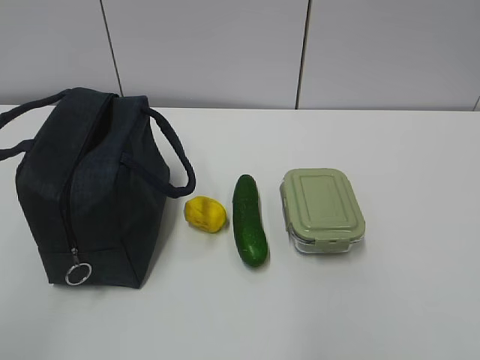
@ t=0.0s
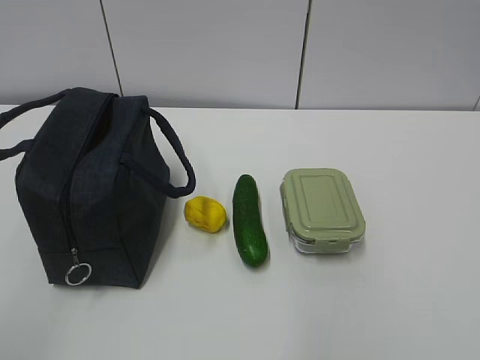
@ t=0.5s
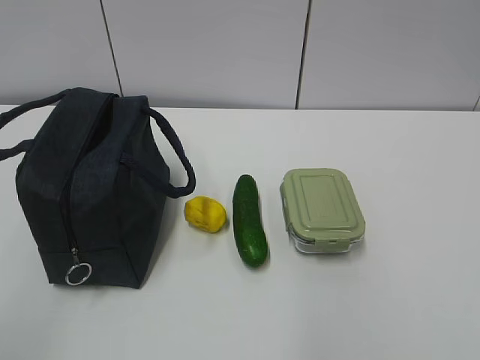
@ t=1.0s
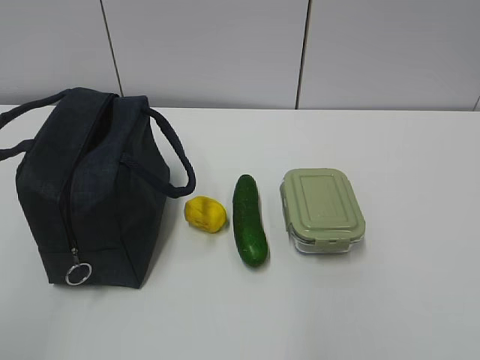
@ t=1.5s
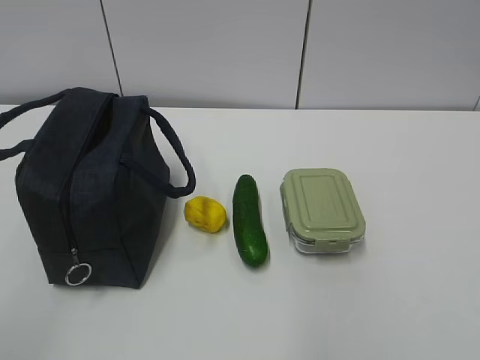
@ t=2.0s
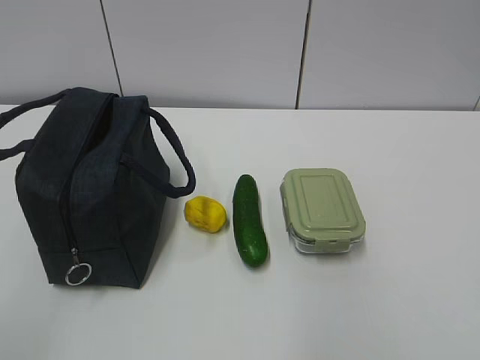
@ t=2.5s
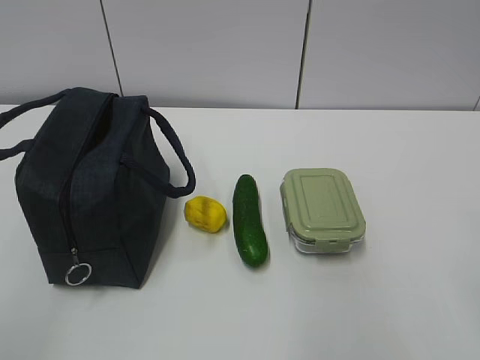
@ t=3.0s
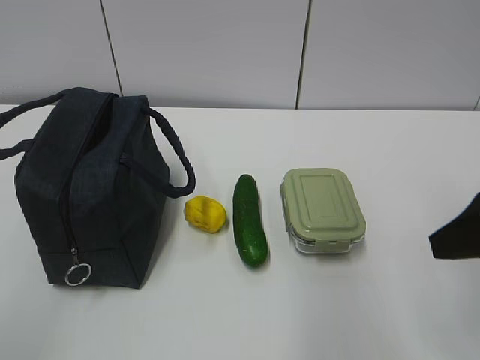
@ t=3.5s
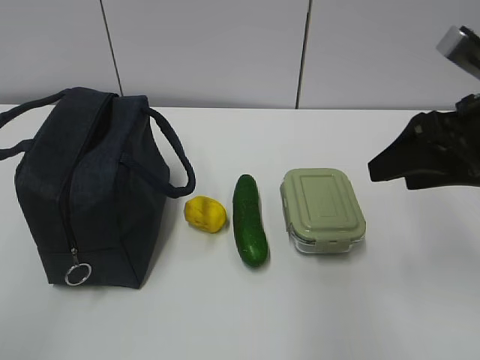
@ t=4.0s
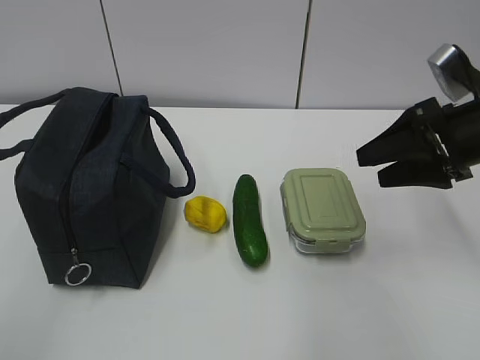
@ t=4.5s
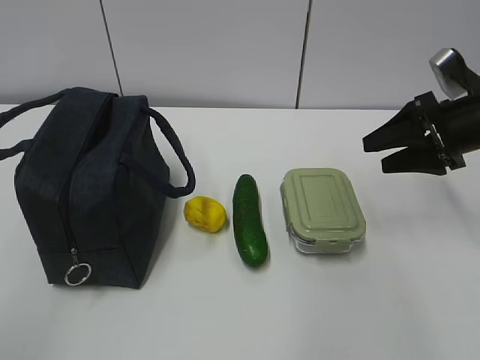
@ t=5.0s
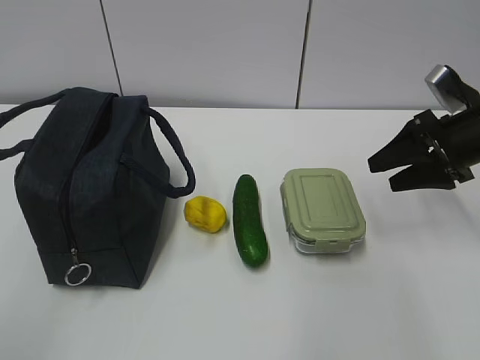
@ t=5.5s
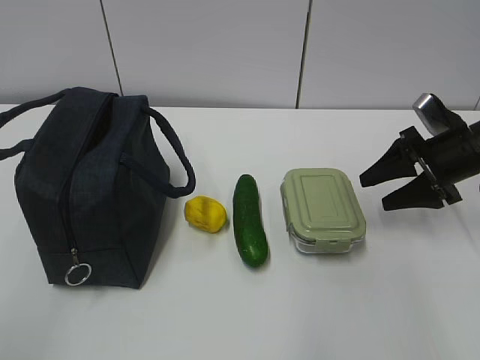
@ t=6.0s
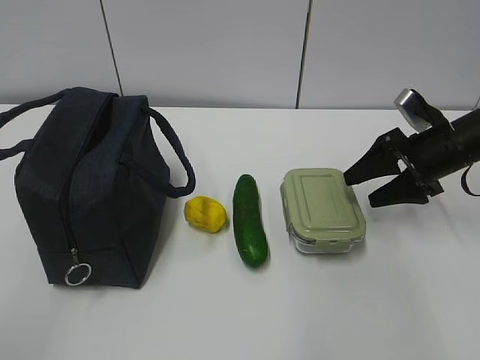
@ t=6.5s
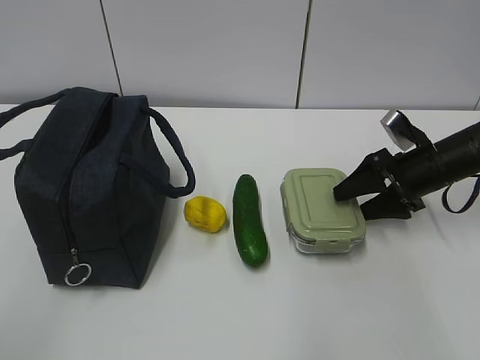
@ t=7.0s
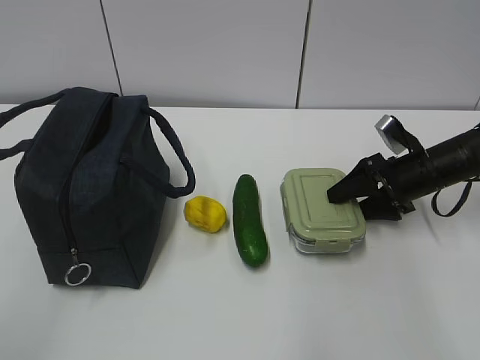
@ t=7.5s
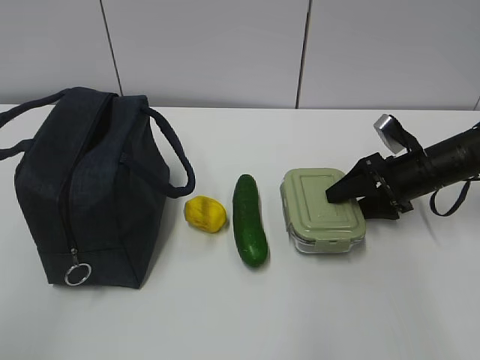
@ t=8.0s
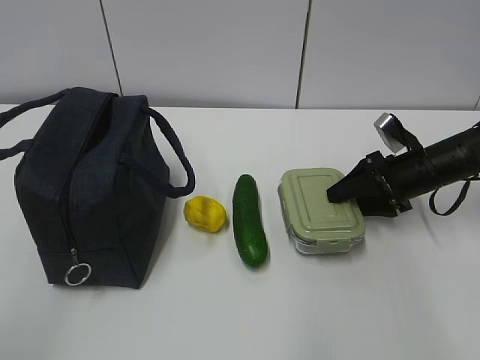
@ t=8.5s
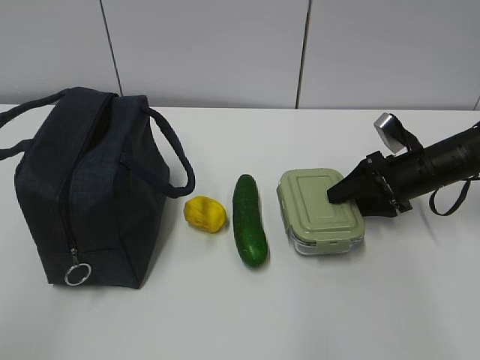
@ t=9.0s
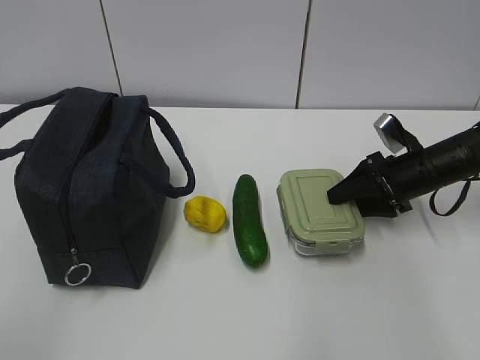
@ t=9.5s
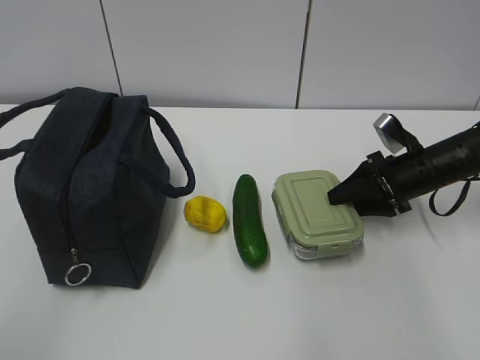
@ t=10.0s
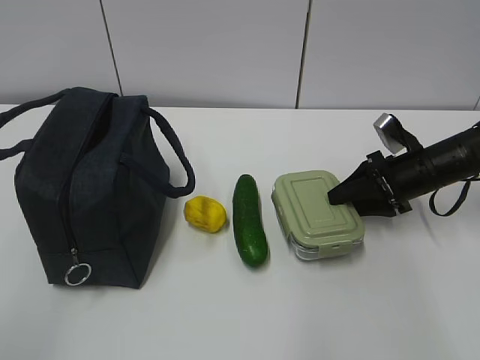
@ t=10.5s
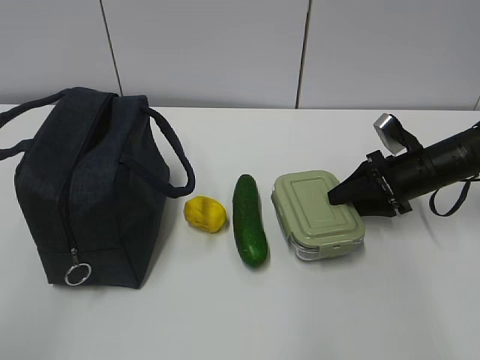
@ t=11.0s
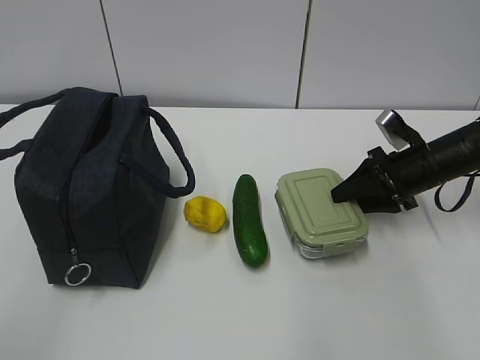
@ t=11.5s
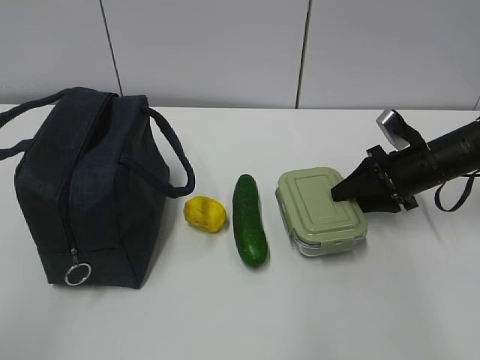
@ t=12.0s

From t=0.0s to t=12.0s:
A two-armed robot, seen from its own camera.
Step, from t=0.0s to t=10.0s: Grab the lunch box with your right hand.
From t=2.0s to t=4.0s: The right gripper goes roughly 30 cm forward.
From t=4.0s to t=6.0s: The right gripper shifts some 15 cm downward, forward and to the right.
From t=6.0s to t=8.0s: The right gripper moves downward, some 5 cm.
From t=8.0s to t=12.0s: Both grippers stay about where they are.

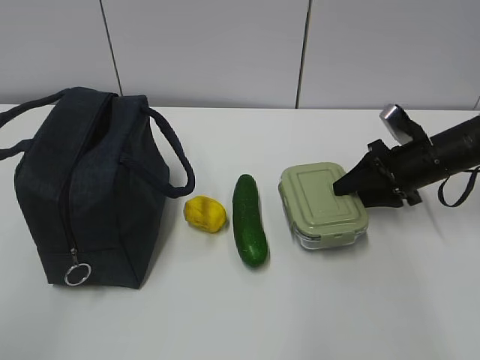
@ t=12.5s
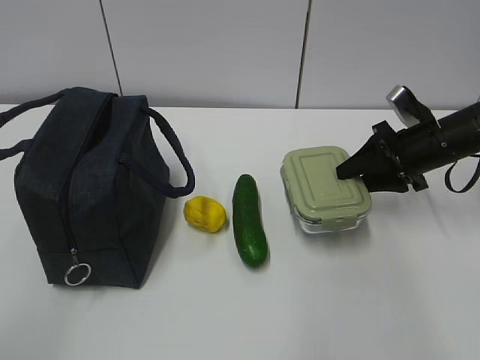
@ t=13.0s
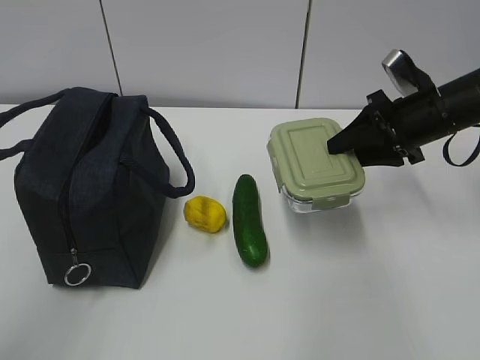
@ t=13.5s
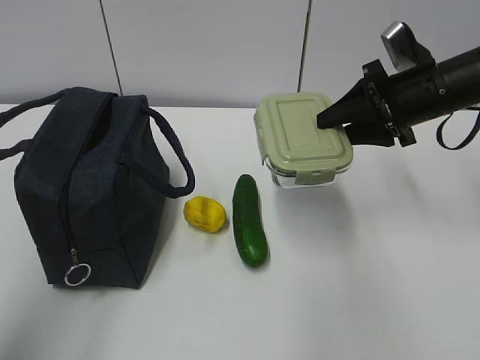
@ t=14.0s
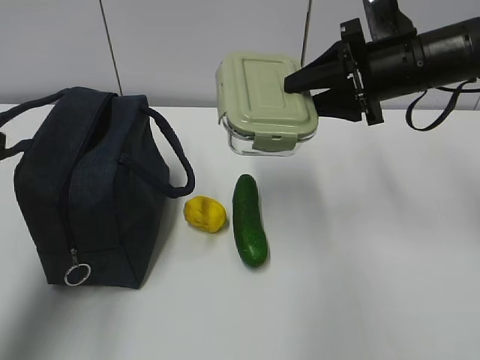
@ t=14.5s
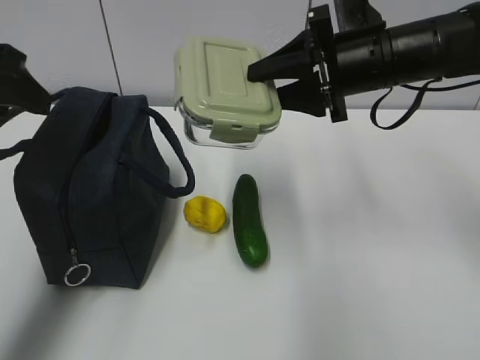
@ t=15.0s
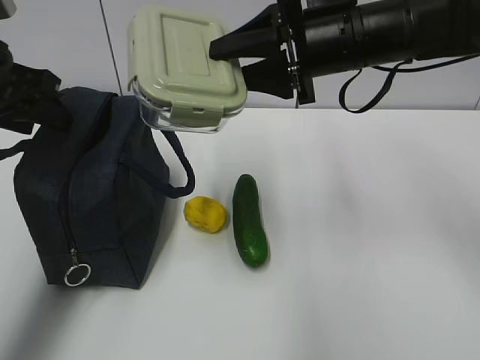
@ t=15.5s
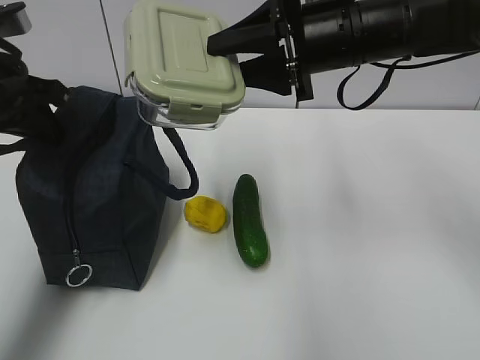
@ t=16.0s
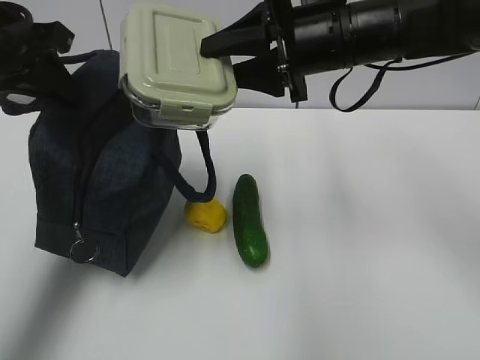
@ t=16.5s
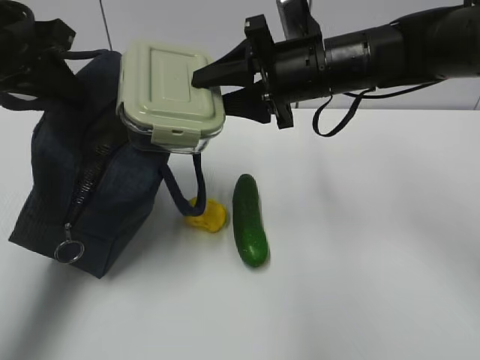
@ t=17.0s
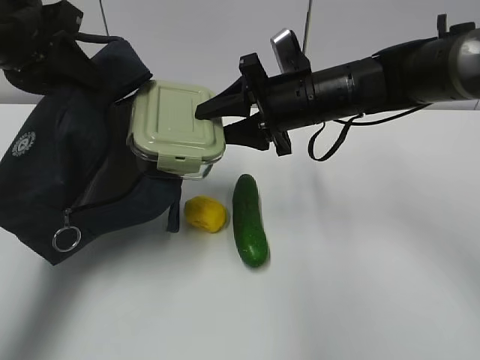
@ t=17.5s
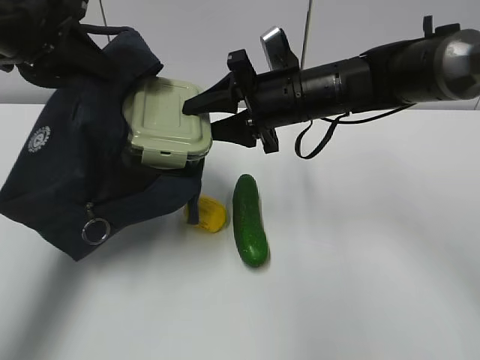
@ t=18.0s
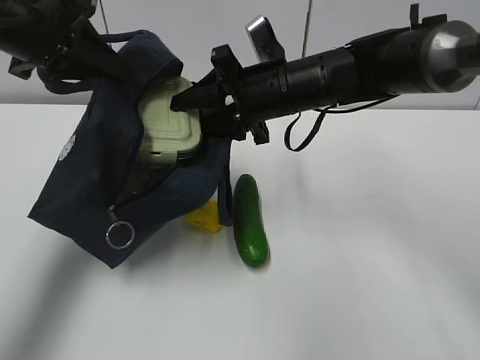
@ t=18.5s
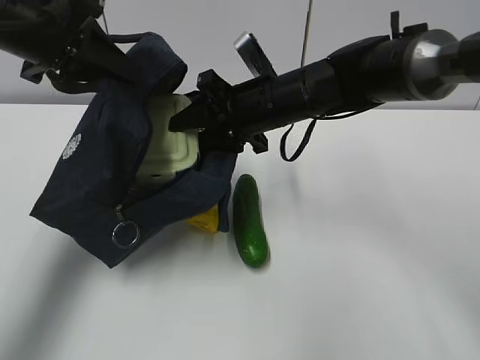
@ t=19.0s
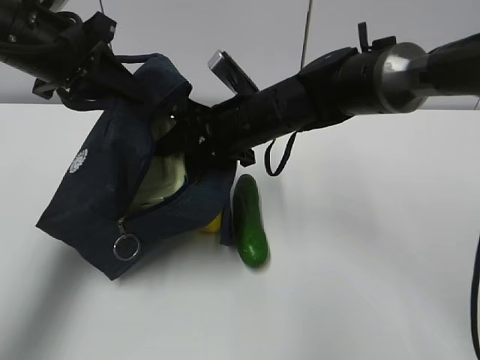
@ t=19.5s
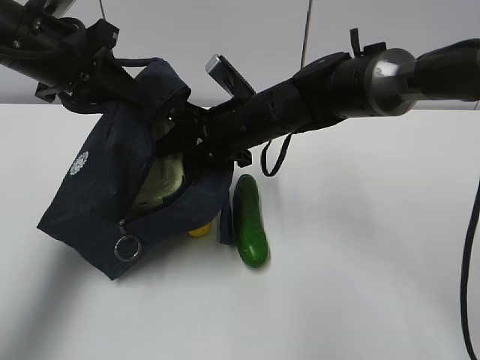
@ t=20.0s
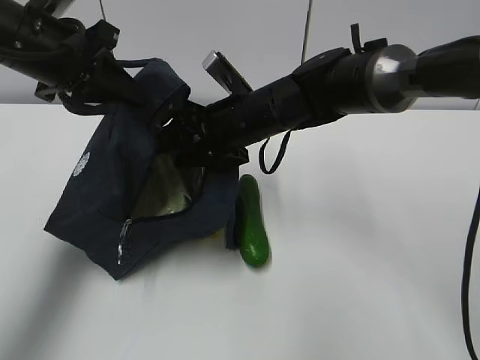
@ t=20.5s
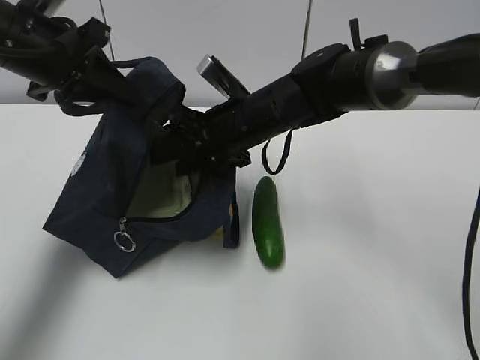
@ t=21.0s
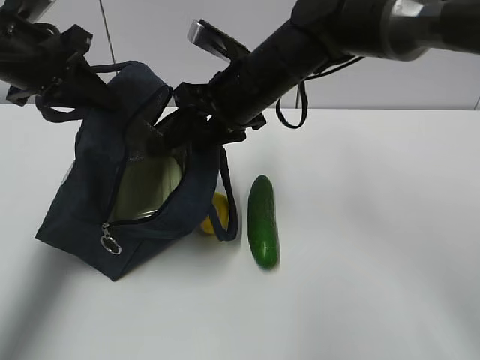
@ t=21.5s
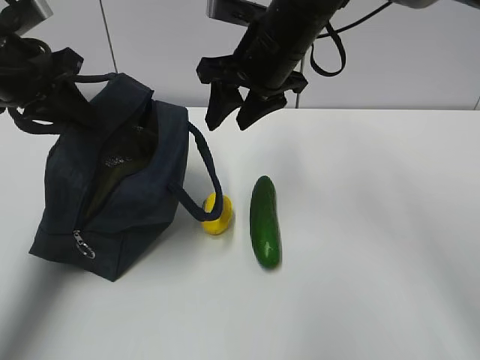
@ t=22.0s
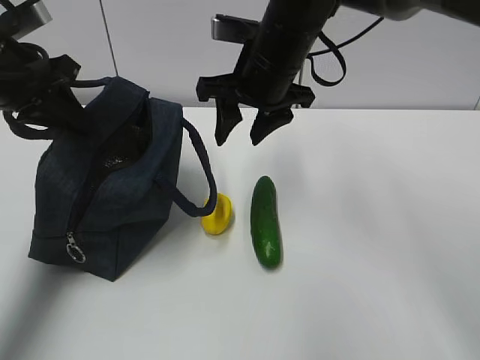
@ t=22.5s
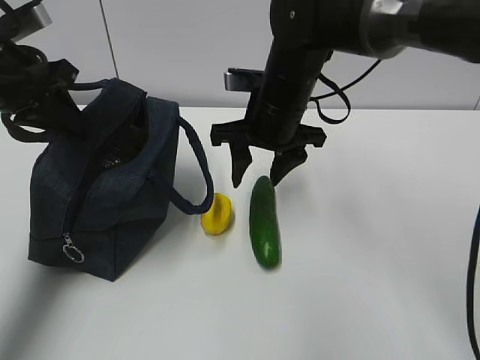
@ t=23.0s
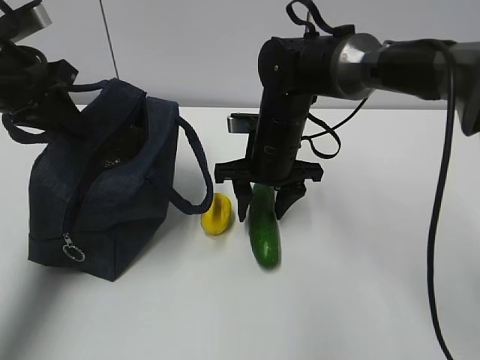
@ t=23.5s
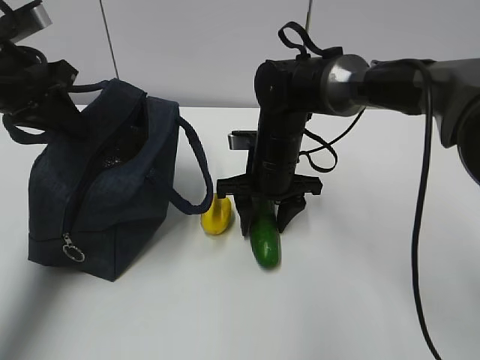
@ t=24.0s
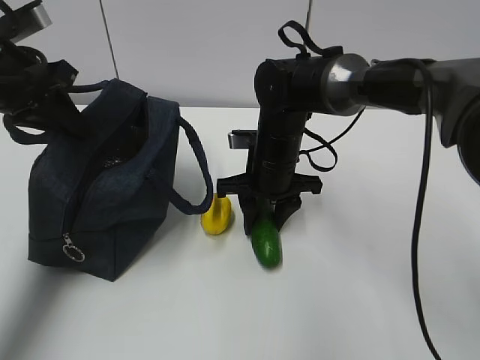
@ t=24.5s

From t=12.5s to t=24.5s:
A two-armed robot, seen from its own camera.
Step, from t=14.0s to t=17.0s: Place it into the bag with your right hand.
Step, from t=17.5s to t=20.5s: Grab the cucumber with your right hand.
Step, from t=21.0s to t=23.0s: Place it into the bag with your right hand.
From t=12.5s to t=14.5s: The right gripper moves upward and to the left, about 15 cm; the left gripper heads forward, covering roughly 20 cm, and opens up.
From t=14.5s to t=16.5s: The left gripper goes about 15 cm forward, and closes. The right gripper moves to the left, some 10 cm.
From t=16.5s to t=18.5s: The right gripper is displaced downward by about 5 cm.
From t=18.5s to t=20.5s: The right gripper changes place by some 5 cm.
From t=20.5s to t=22.5s: The right gripper is displaced upward by roughly 5 cm.
From t=22.5s to t=24.5s: The right gripper heads downward, covering roughly 15 cm.

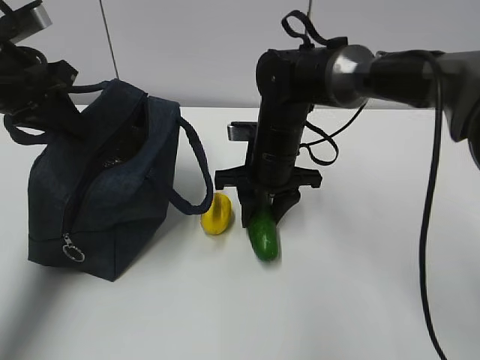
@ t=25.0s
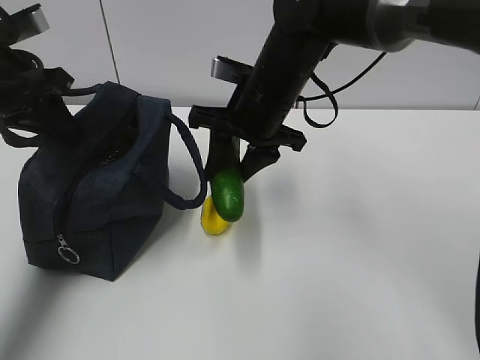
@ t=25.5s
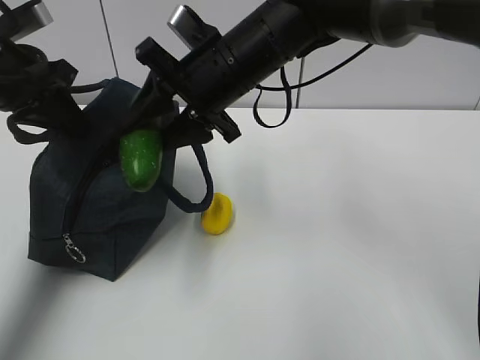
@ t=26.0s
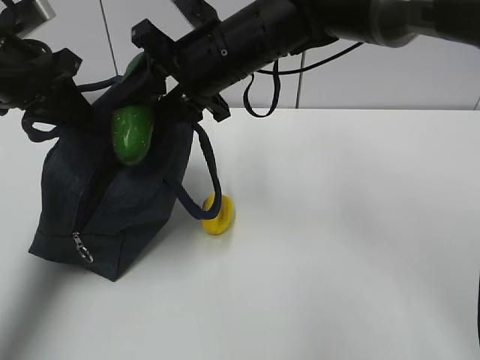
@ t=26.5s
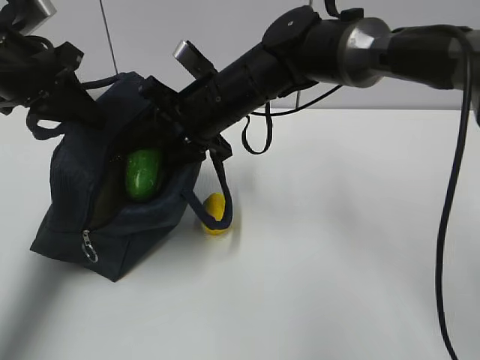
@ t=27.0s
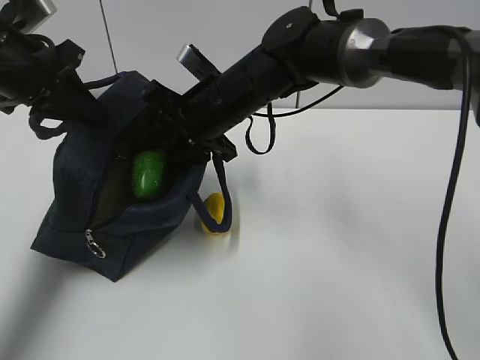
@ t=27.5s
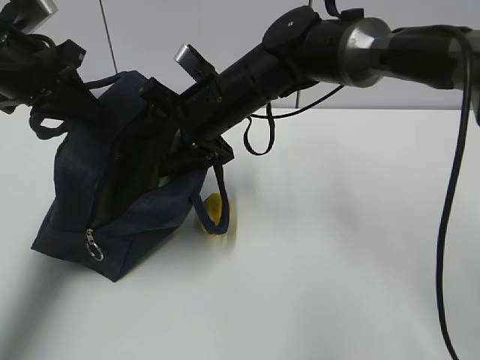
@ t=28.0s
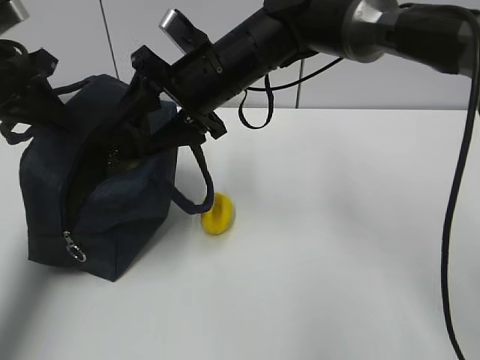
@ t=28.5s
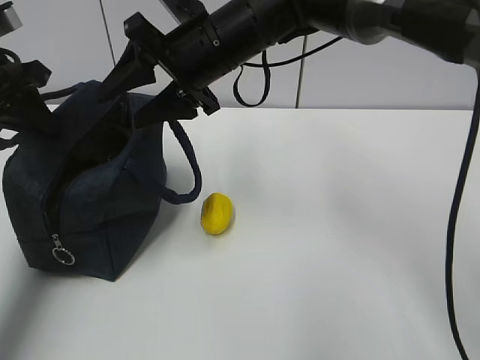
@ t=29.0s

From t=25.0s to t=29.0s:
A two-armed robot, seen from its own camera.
Step, from t=25.0s to t=28.5s: Grab the lemon with your right hand.
From t=25.0s to t=27.0s: The right gripper goes about 10 cm upward and to the left.
From t=27.0s to t=29.0s: The right gripper heads upward, covering roughly 5 cm.
